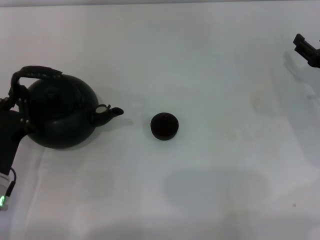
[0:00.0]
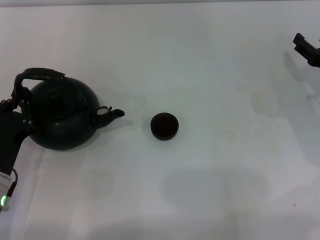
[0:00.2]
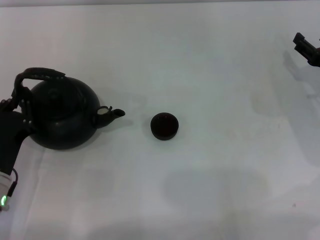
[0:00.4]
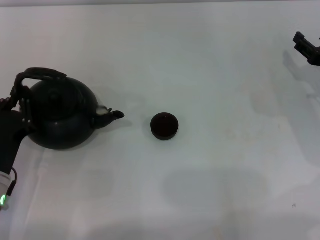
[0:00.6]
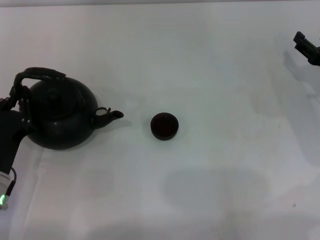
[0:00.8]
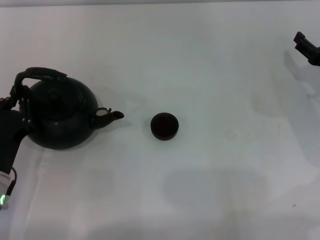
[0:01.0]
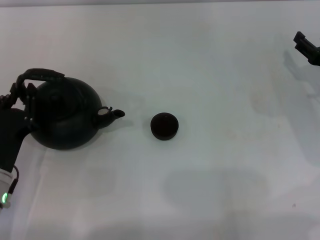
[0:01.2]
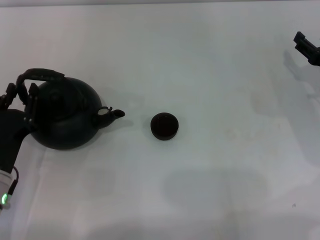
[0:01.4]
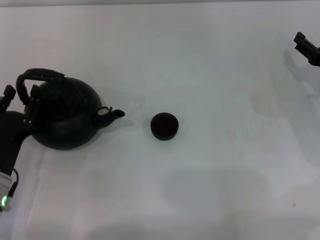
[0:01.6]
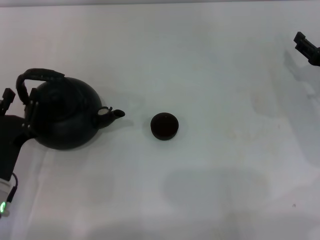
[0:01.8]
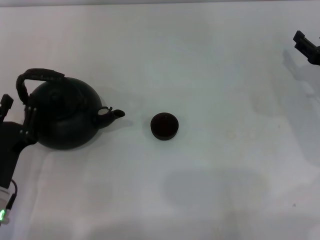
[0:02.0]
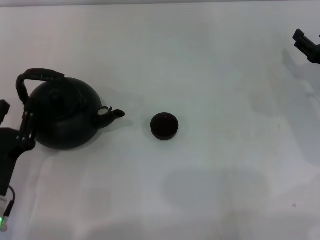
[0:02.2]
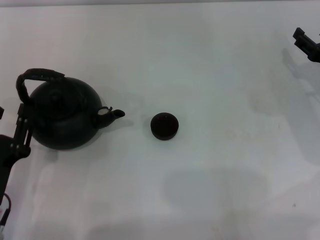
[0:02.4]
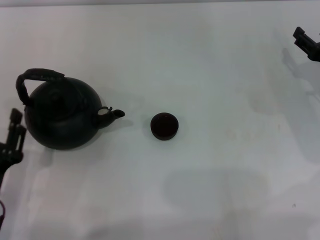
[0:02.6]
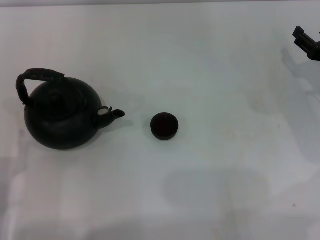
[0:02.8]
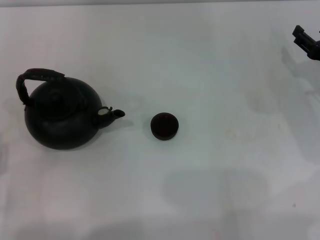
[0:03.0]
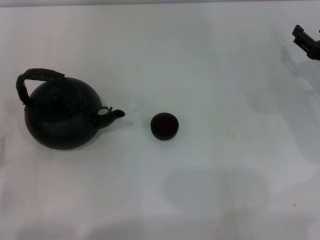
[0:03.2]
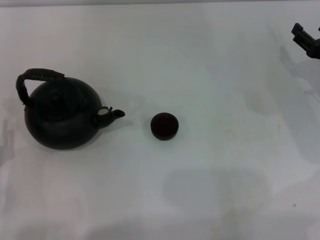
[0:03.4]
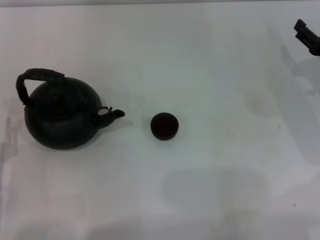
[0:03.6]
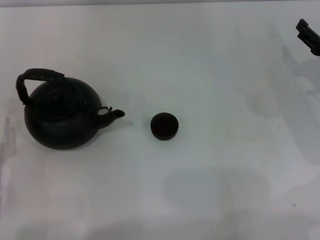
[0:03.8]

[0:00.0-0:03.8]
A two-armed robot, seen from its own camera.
Task of the whole recording: Grasp the handle of the teapot with one hand and pour tea into the teacup.
Step, 0.0 to 1.6 s: Put down the teapot with the left gripper.
0.0 to 1.2 s: Both grippers stay put.
1.2 to 2.6 s: The left gripper goes about 5 cm backward, and opens up.
2.6 to 3.8 s: The grippers make only small movements.

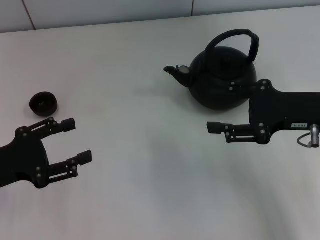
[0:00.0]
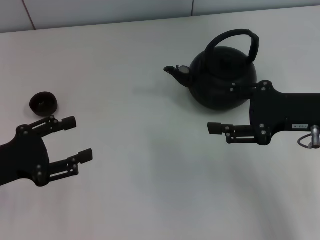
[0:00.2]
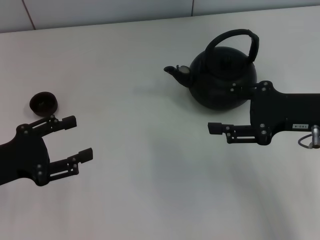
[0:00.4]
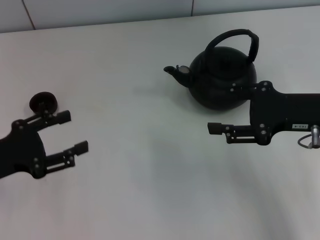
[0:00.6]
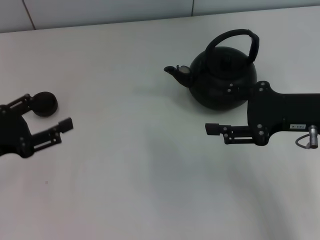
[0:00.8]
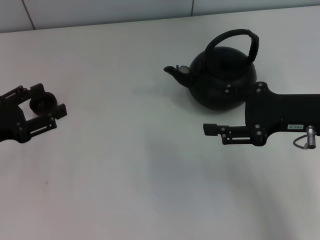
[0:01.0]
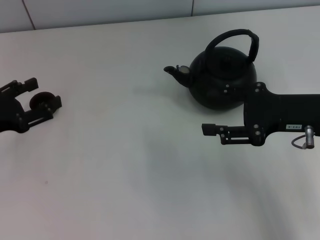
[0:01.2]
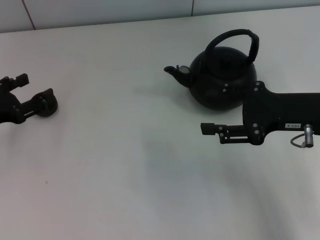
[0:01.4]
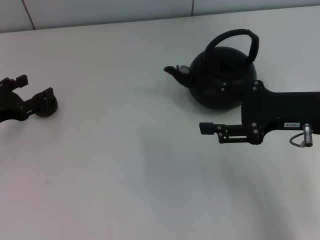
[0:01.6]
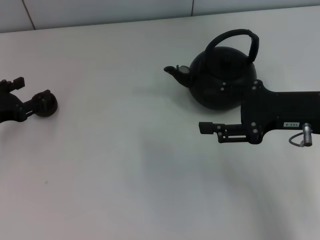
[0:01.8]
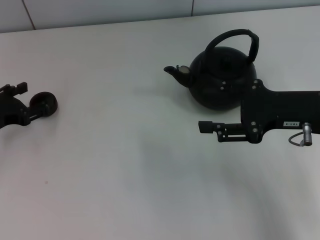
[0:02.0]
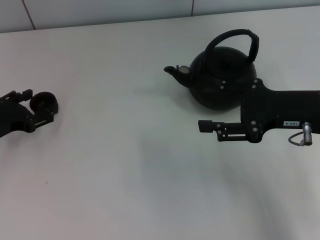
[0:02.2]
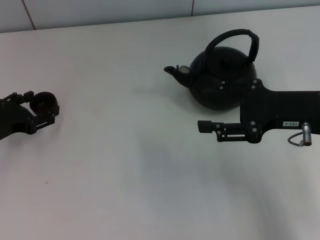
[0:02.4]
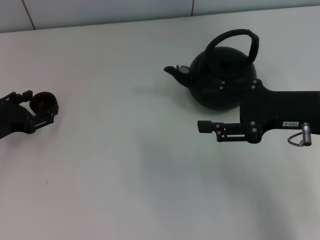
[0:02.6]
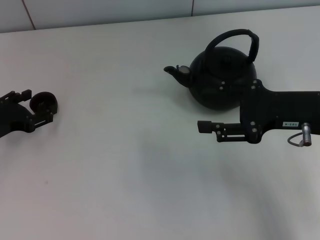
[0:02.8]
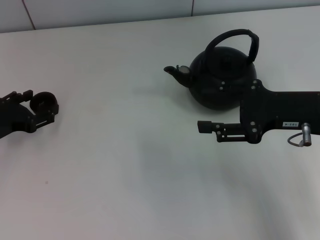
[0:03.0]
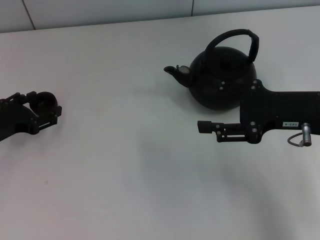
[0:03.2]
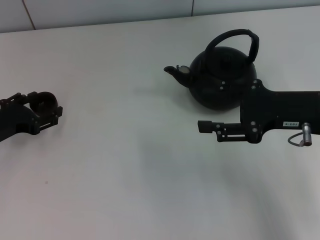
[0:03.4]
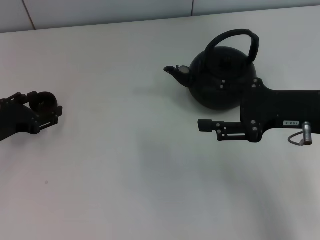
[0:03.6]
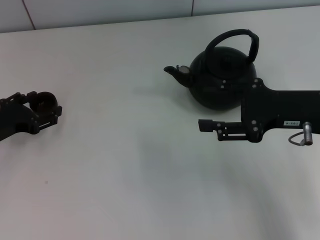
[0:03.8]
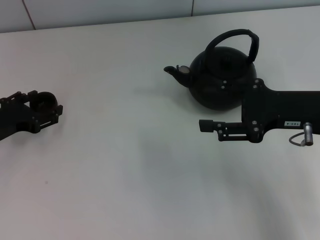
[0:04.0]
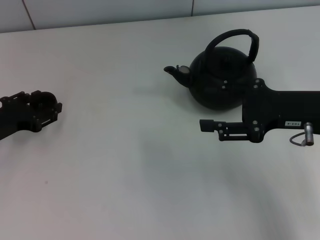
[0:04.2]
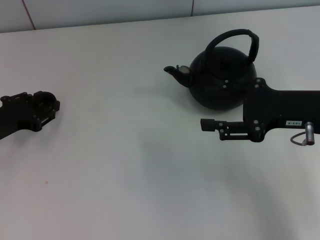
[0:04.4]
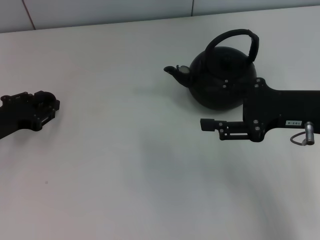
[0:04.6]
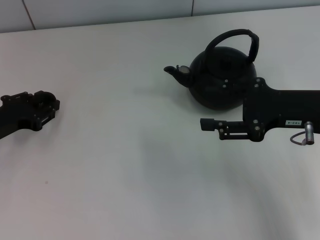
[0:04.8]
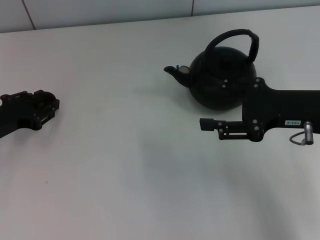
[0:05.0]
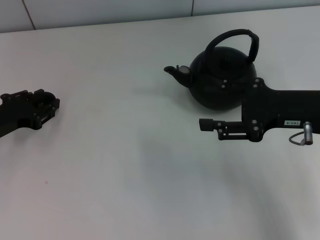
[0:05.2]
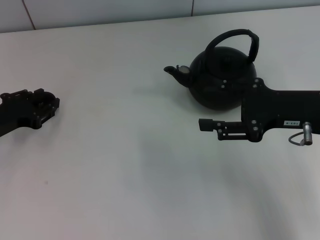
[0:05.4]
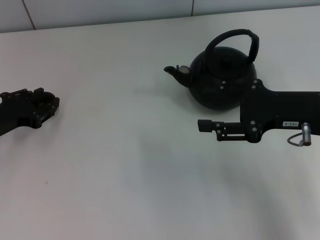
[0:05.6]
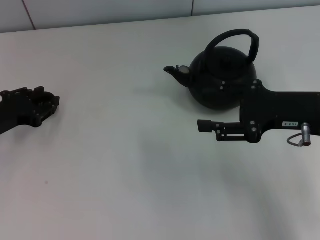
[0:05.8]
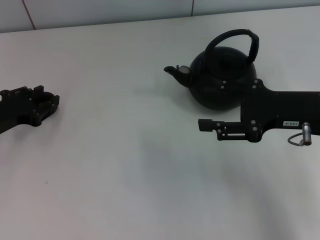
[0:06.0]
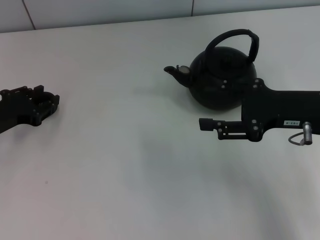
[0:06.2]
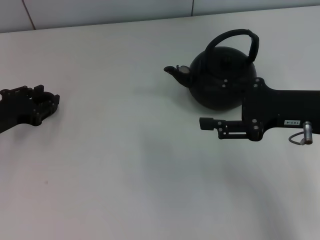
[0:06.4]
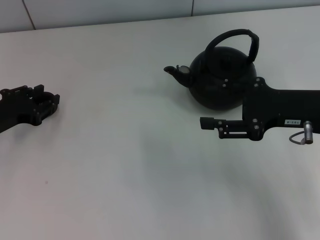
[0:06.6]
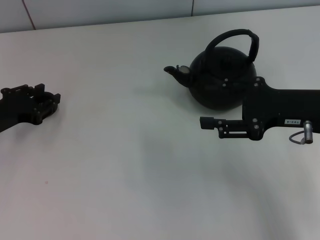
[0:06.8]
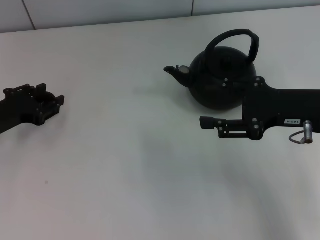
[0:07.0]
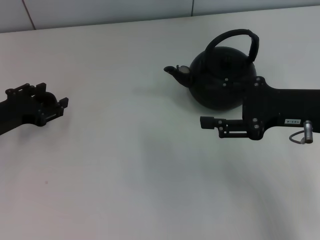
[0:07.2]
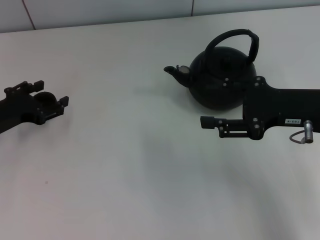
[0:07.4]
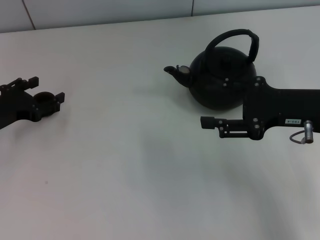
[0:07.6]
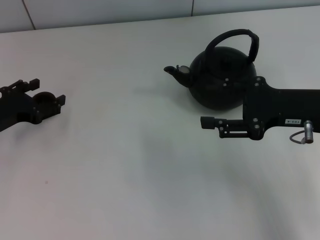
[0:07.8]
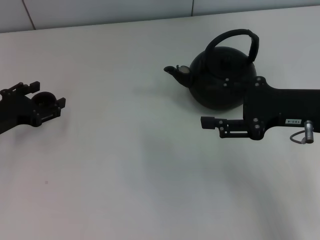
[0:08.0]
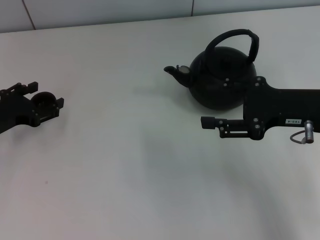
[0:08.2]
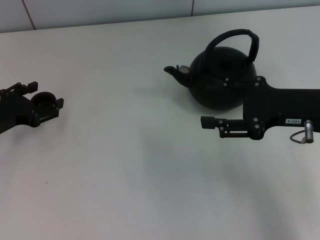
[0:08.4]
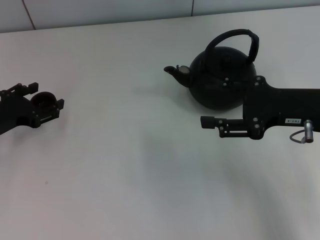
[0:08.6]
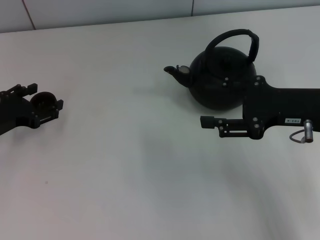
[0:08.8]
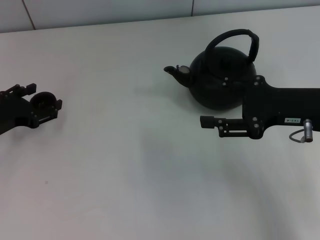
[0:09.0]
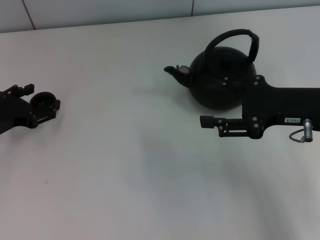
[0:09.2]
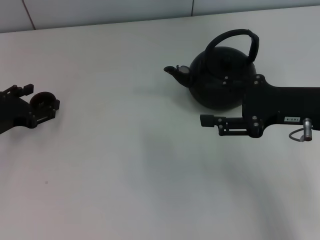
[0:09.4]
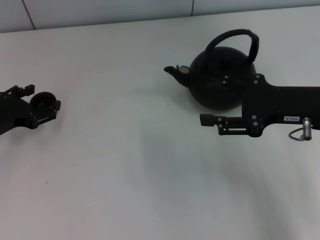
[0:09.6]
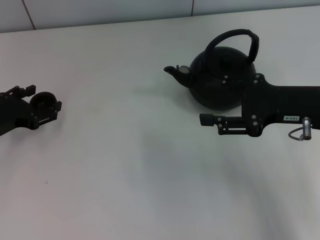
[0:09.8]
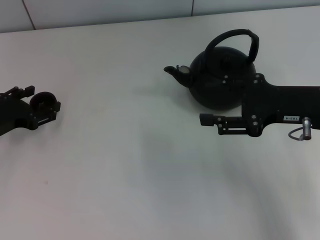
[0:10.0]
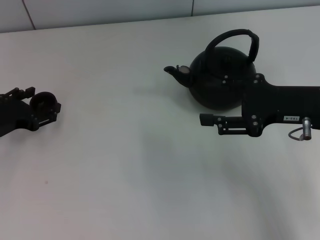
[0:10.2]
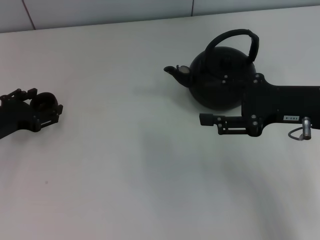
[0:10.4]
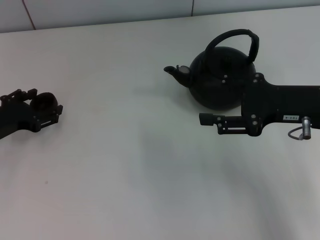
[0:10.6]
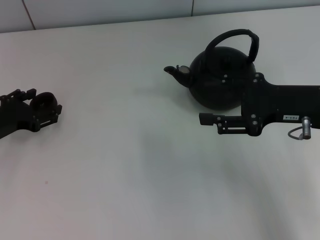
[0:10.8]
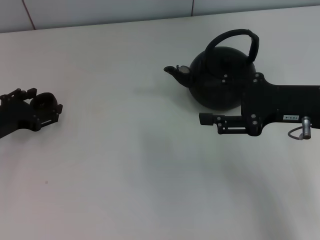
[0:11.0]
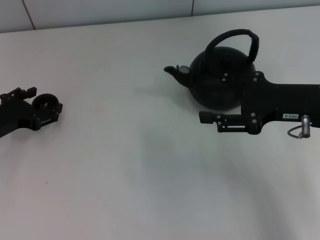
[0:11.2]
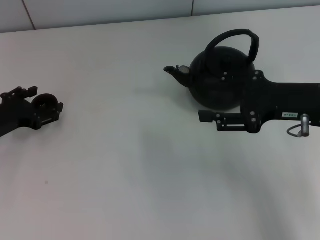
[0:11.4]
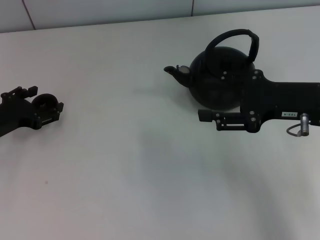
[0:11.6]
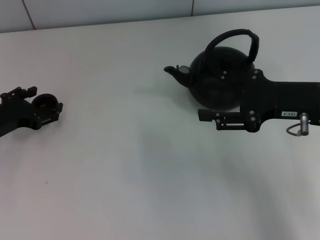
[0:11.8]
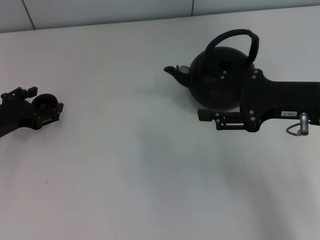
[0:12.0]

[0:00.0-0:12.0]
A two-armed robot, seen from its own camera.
Task of the whole recording: Grasp the handle of the teapot with one hand and pour tea into the teacup.
0.0 to 1.6 s: The left gripper shifts some 5 cm forward.
1.6 to 3.0 s: The grippers stay close to where they were, moving slightly.
3.0 to 4.4 s: Both grippers stay about where they are.
4.4 to 6.0 s: The left gripper closes.
6.0 to 7.6 s: The left gripper opens.
7.6 to 9.0 s: The two grippers keep their place.
9.0 to 12.0 s: Both grippers stay put.

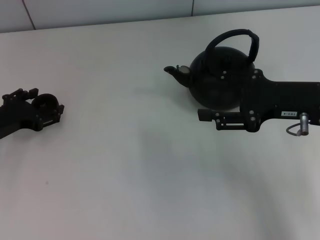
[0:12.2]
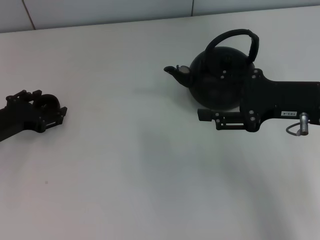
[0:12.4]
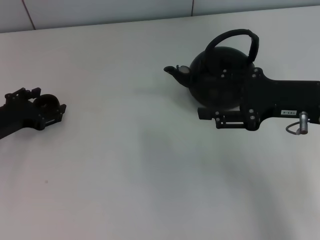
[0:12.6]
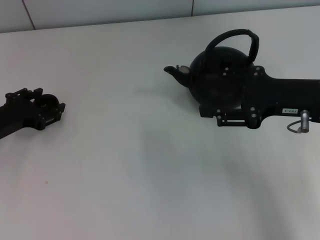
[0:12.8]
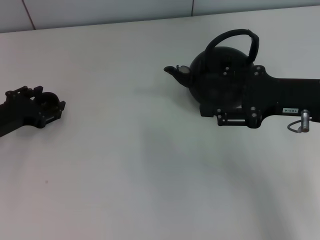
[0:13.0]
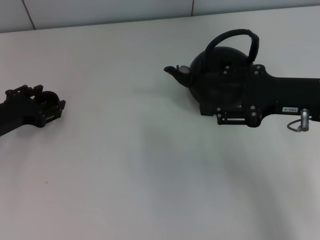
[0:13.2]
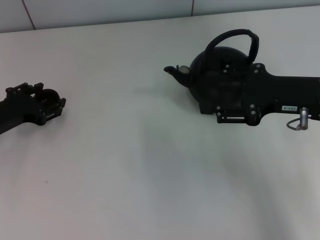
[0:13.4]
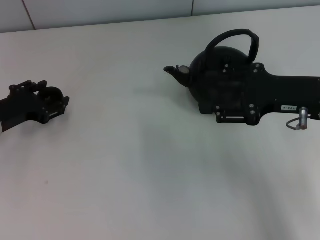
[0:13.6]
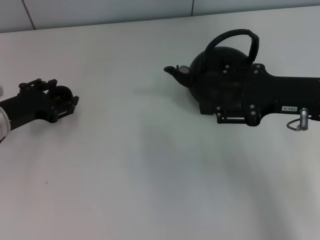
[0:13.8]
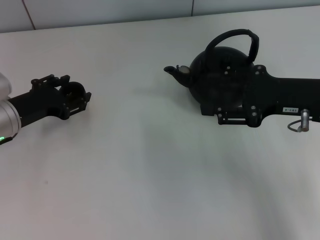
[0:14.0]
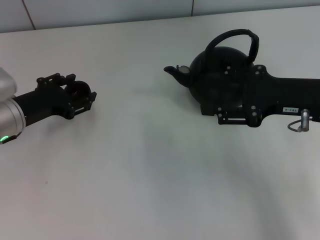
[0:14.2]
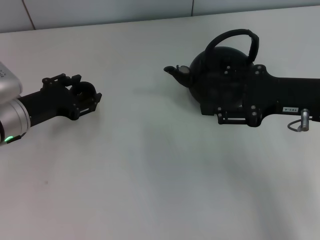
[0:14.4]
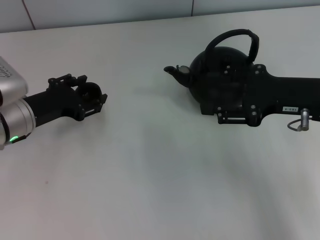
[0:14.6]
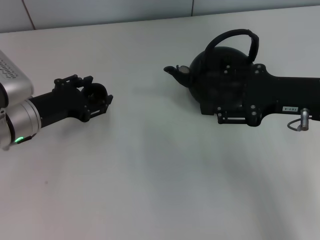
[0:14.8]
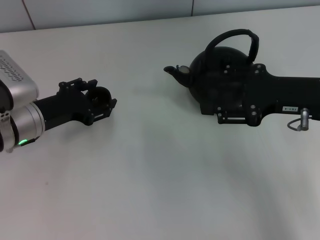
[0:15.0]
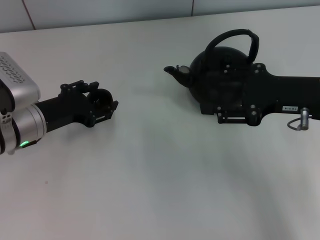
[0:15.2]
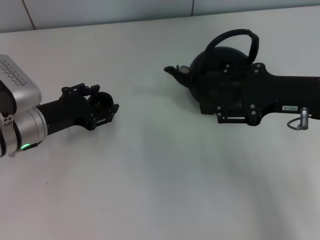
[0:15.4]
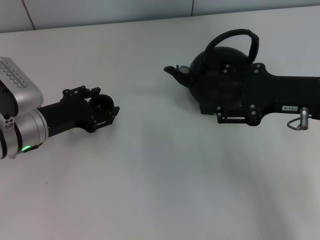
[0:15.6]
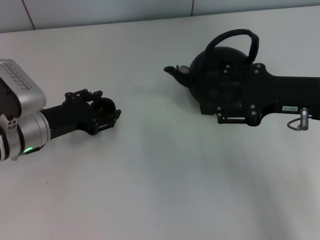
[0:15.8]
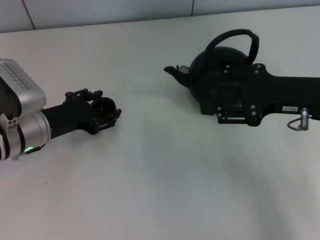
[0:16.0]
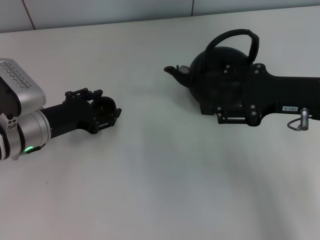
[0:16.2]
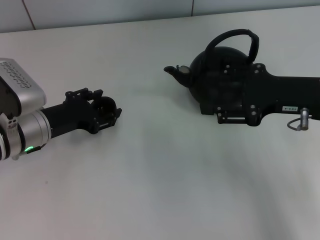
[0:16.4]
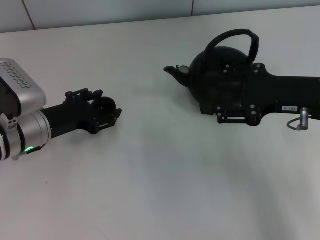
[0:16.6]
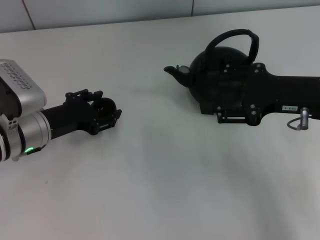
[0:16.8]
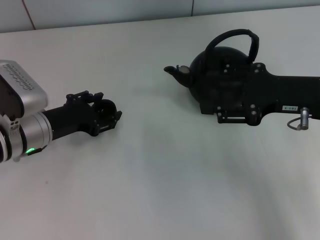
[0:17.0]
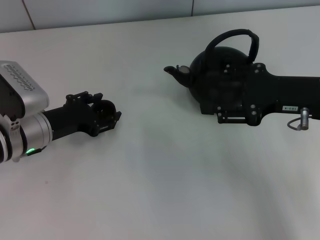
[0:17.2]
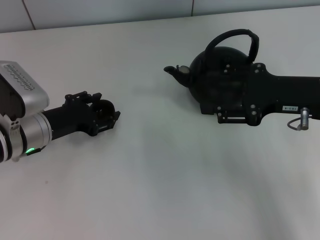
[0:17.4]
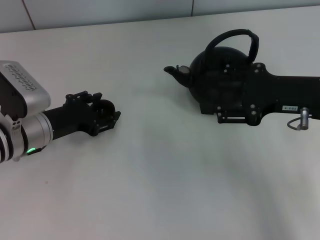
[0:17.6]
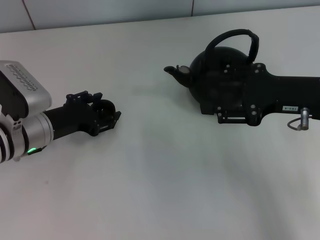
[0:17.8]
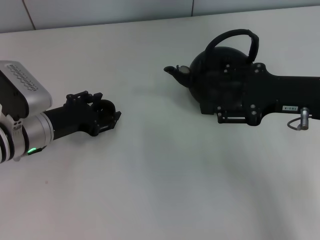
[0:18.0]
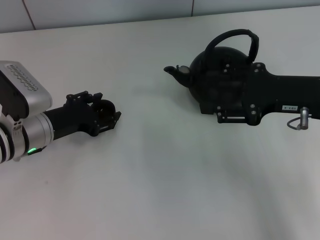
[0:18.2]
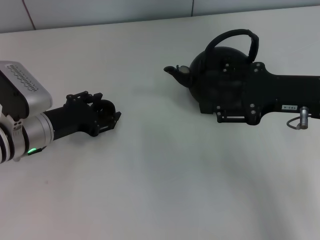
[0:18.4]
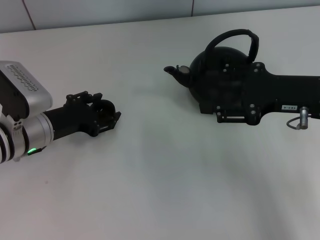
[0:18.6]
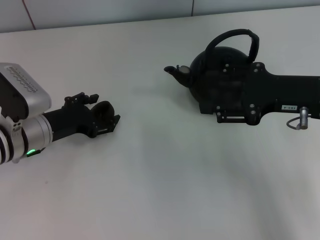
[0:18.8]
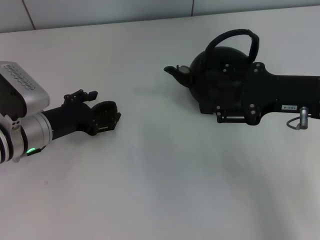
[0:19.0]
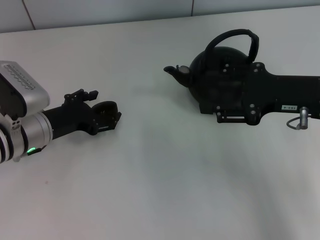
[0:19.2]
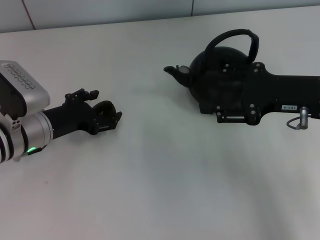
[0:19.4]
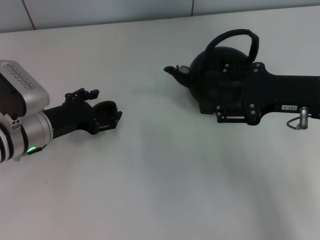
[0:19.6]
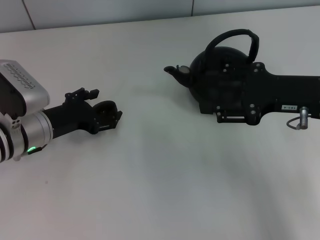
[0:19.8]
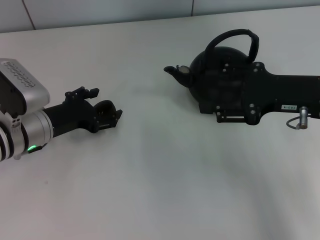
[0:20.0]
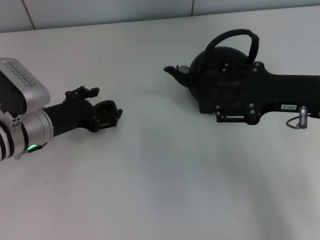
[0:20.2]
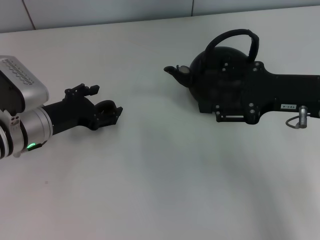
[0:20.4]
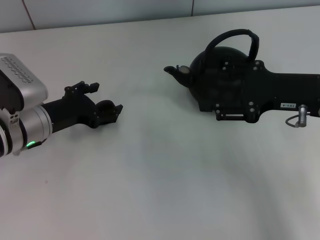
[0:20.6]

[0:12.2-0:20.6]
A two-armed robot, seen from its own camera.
Task of the whole recording: Grasp the handle of the teapot with one hand and pour tea into the teacup.
12.2 to 13.6 s: Both grippers stay put.
13.6 to 15.0 s: The left gripper travels to the right by about 5 cm.
15.0 to 16.4 s: Neither gripper changes place.
16.4 to 20.6 s: Neither gripper changes place.
